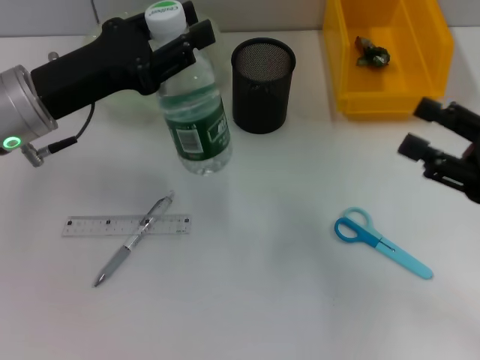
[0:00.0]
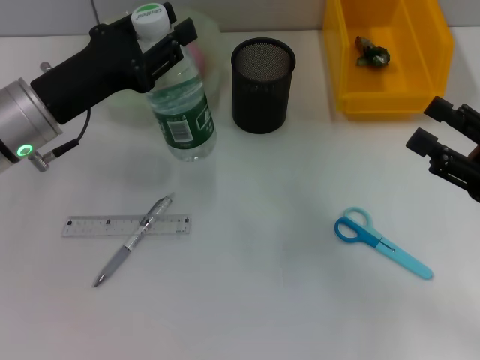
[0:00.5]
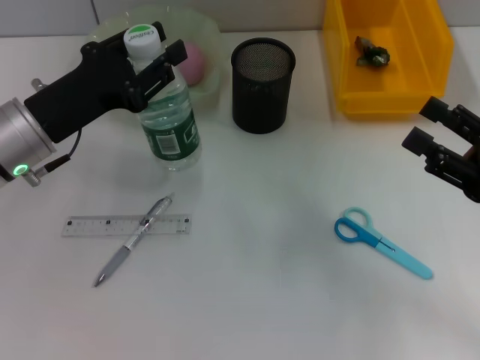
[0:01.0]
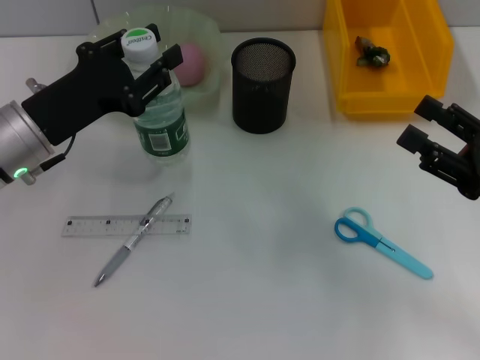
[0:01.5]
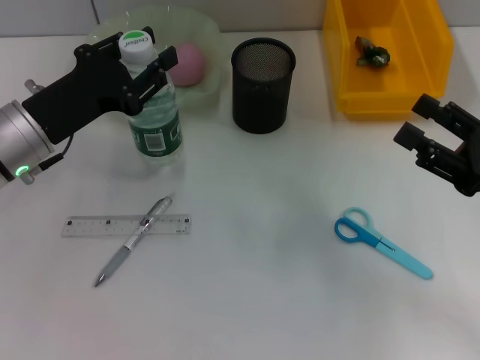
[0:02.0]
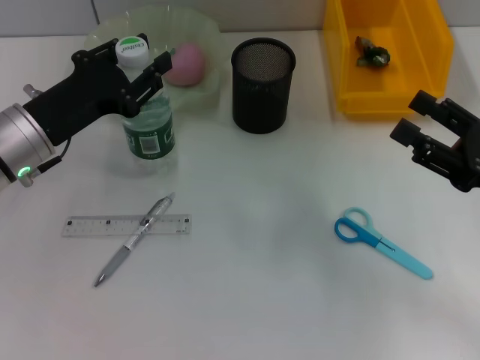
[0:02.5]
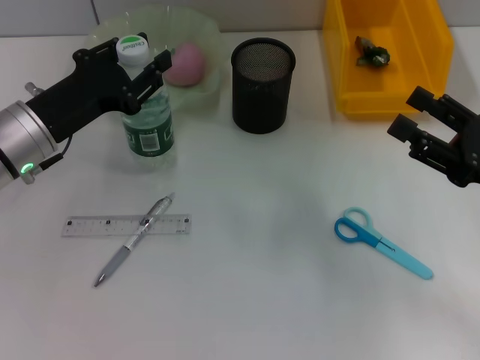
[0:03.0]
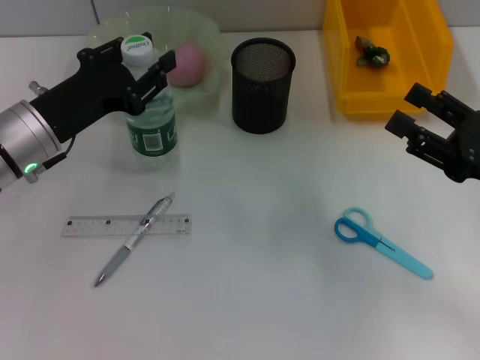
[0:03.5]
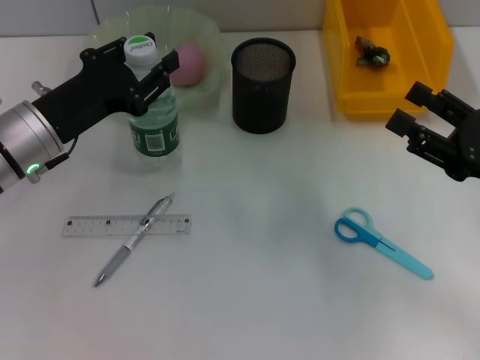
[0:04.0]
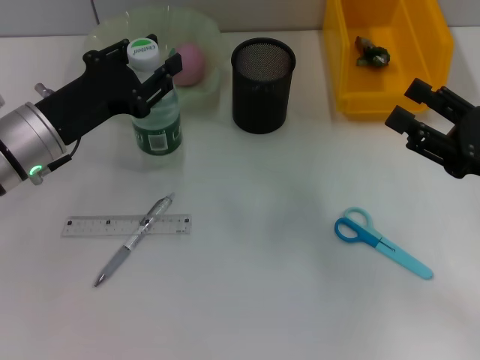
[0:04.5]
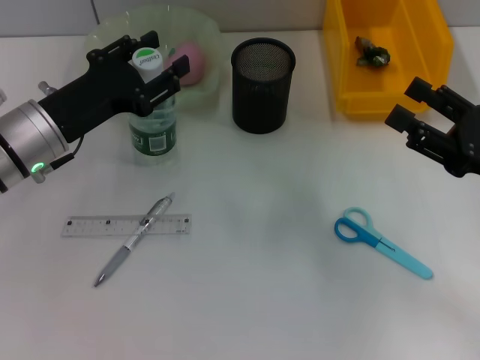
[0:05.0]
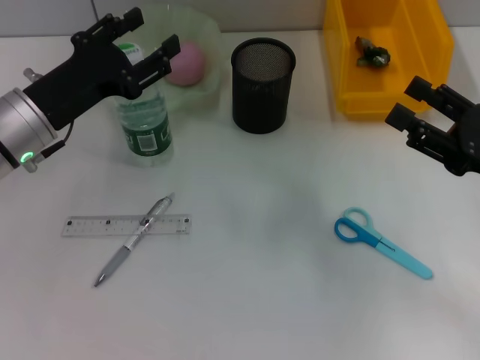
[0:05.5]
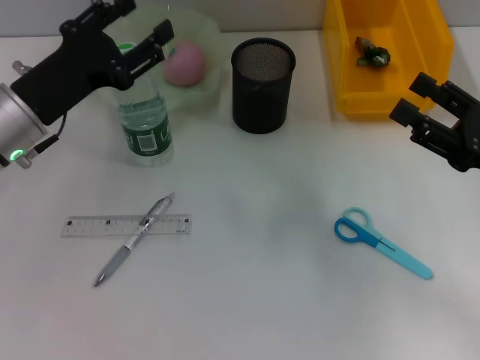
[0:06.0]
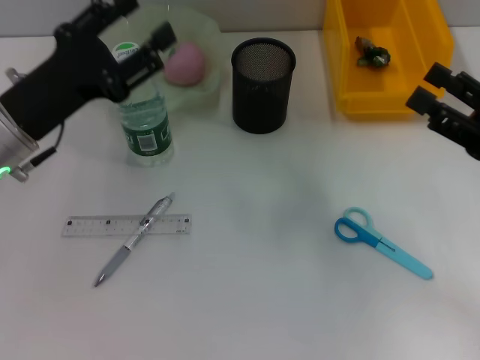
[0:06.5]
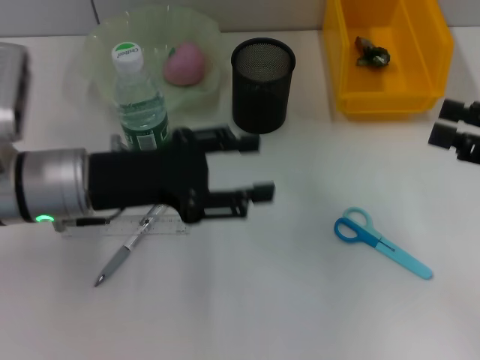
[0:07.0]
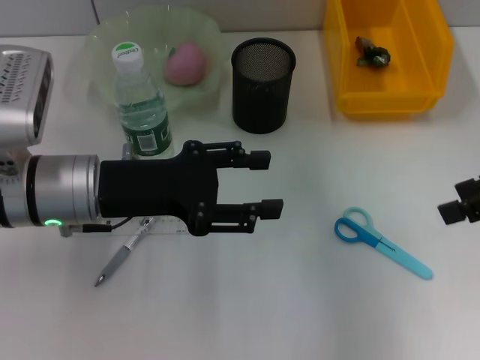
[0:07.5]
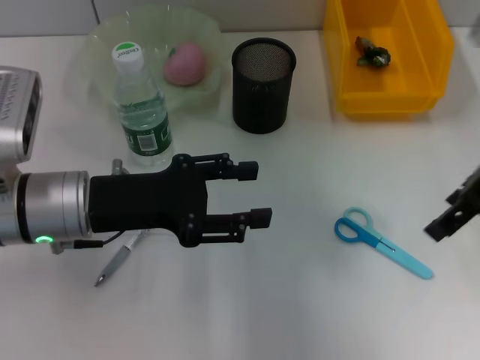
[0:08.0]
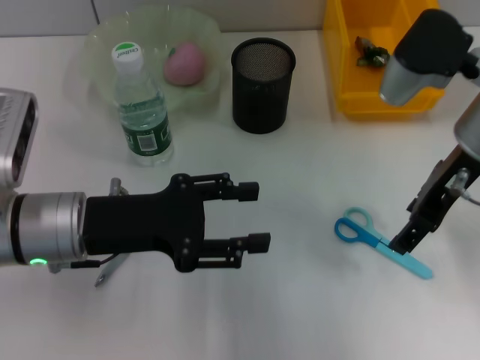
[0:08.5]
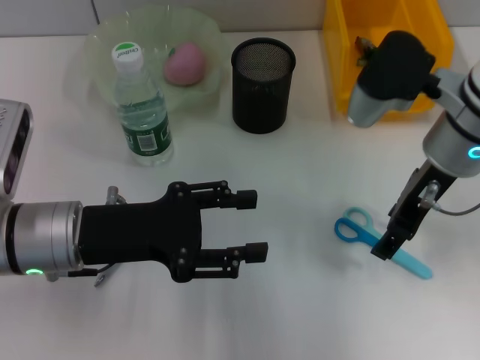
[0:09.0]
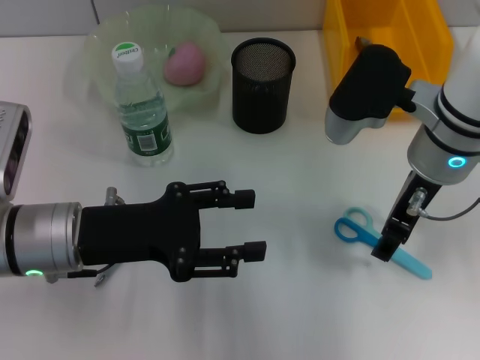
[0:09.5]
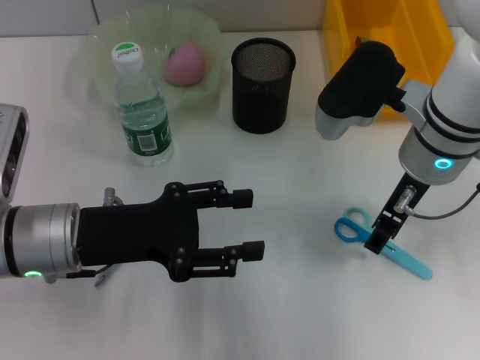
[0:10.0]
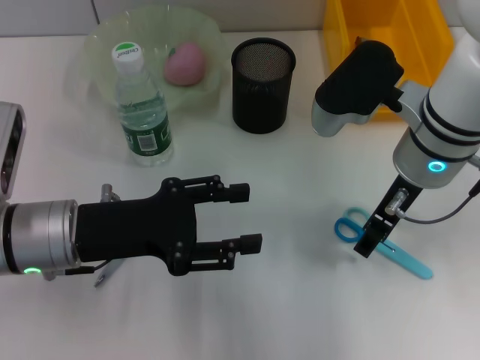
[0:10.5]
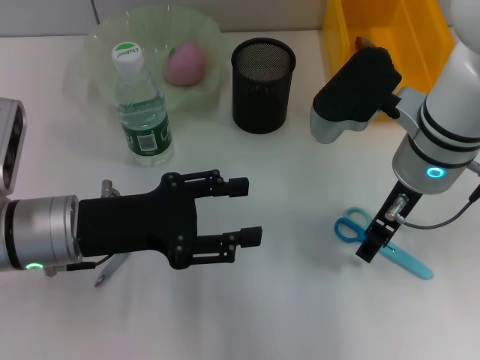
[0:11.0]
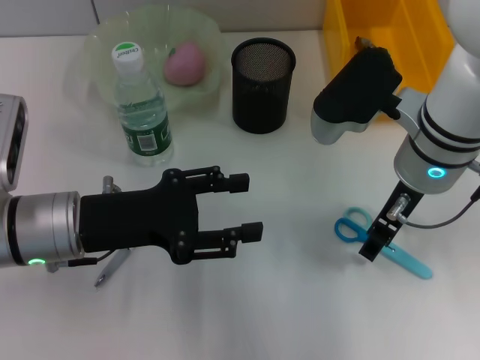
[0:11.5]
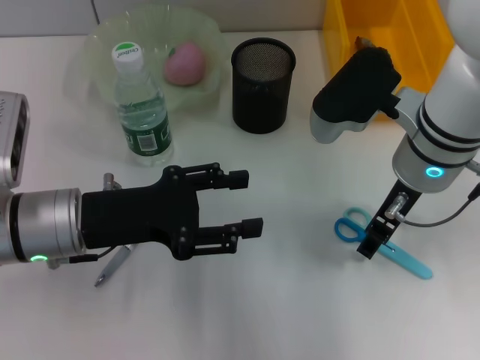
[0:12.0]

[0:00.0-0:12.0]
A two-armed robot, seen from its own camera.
Step, 0:00.0 to 0:05.5: Place the water bottle on the table with the left hand.
0:00.0 to 0:02.0: The grippers make only small movements.
0:02.0 to 0:04.0: Both grippers stay put.
0:04.0 to 0:06.0: The left gripper opens its fingers.
0:06.0 to 0:08.0: The left gripper ends up roughly 5 cm from where it was; the right gripper heads upward and forward, covering roughly 15 cm.
0:08.0 to 0:10.0: The right gripper travels to the left and downward by some 10 cm.
0:10.0 to 0:12.0: Both grippers stay about where they are.

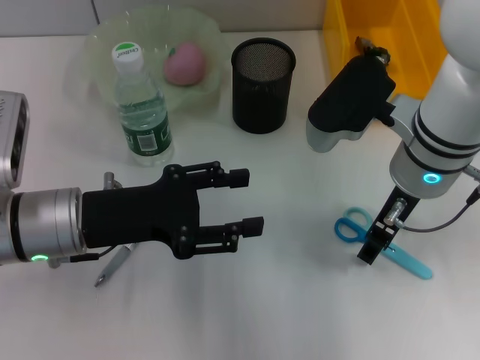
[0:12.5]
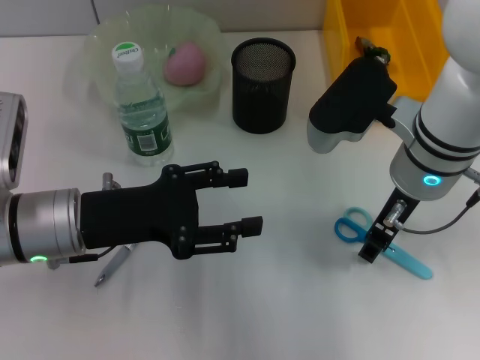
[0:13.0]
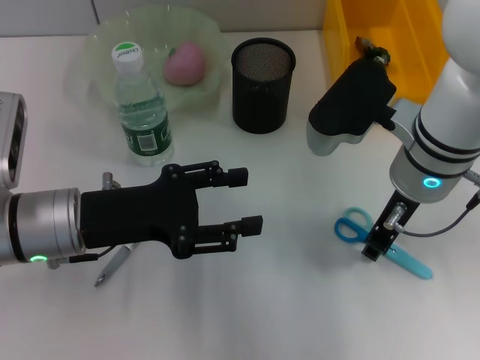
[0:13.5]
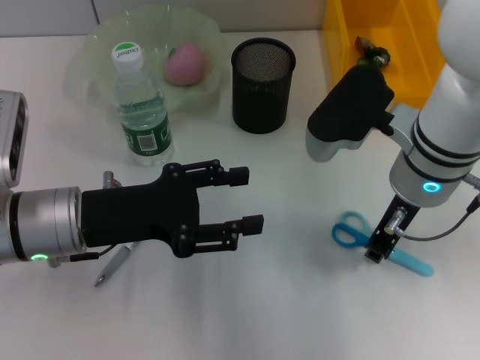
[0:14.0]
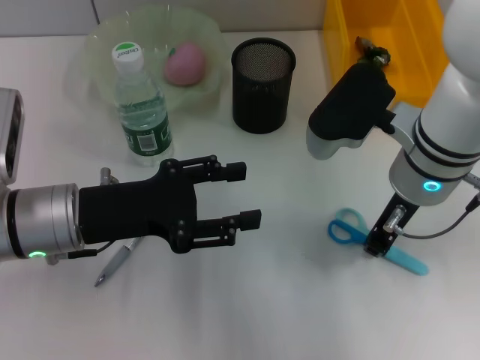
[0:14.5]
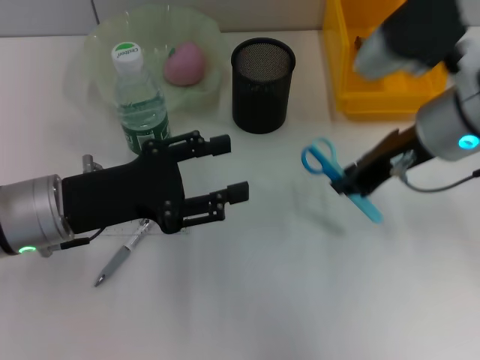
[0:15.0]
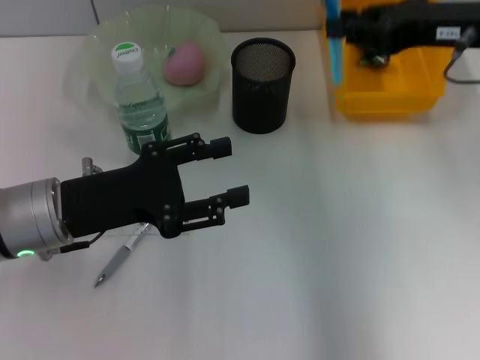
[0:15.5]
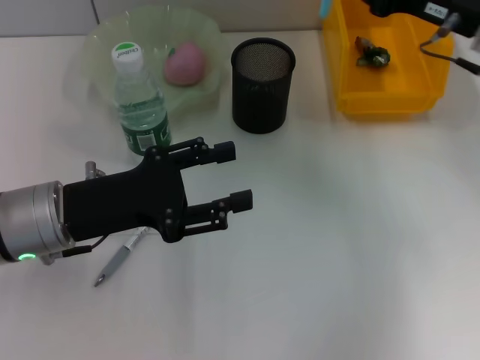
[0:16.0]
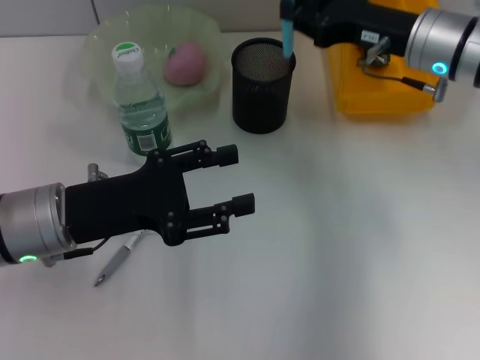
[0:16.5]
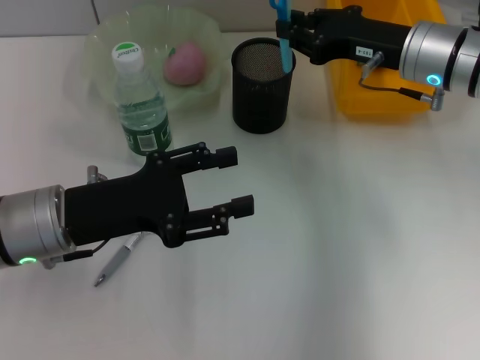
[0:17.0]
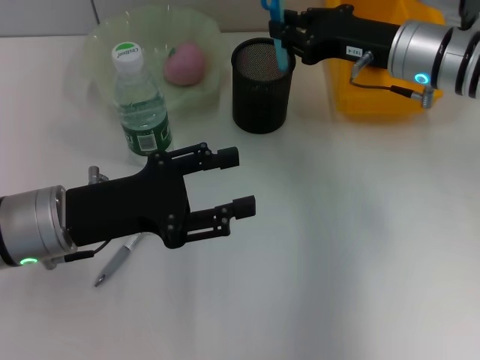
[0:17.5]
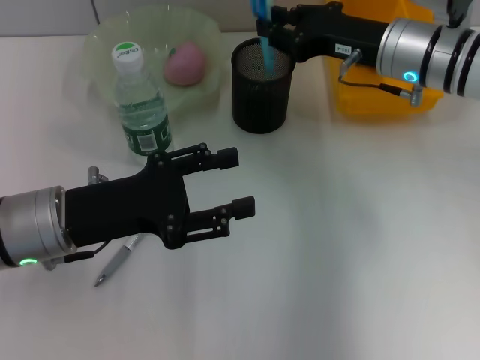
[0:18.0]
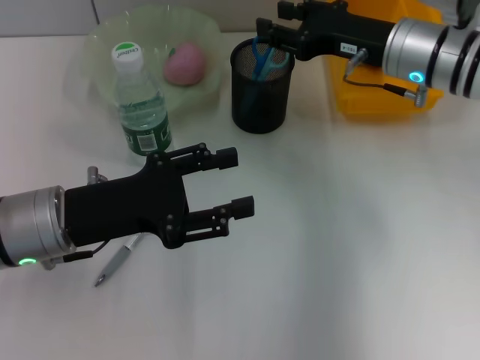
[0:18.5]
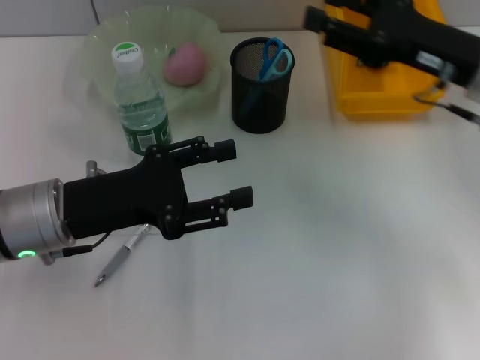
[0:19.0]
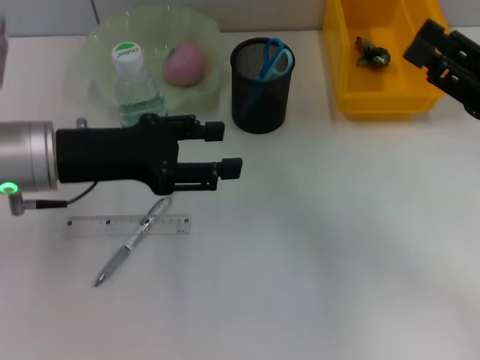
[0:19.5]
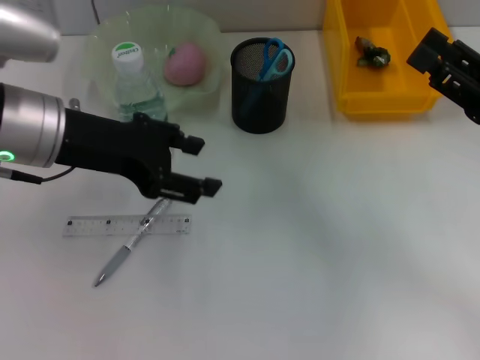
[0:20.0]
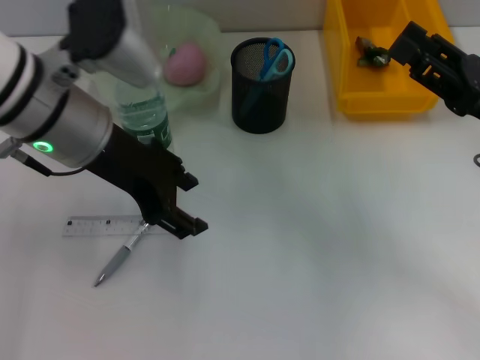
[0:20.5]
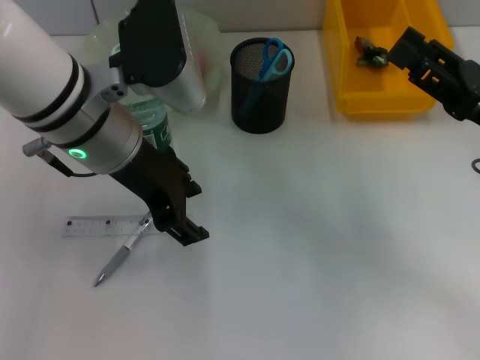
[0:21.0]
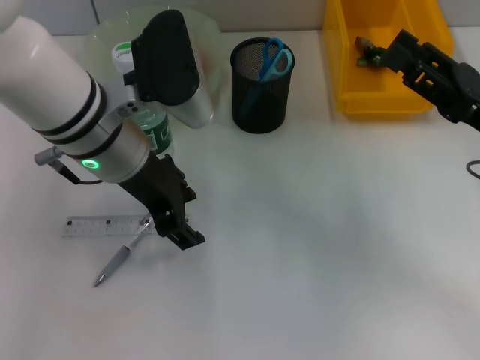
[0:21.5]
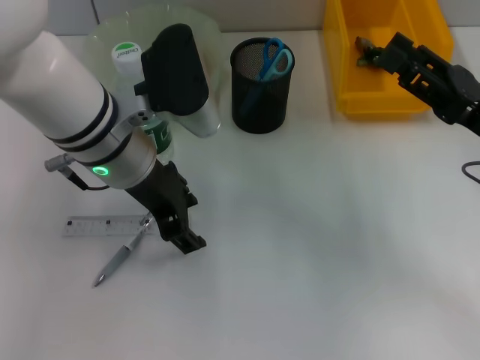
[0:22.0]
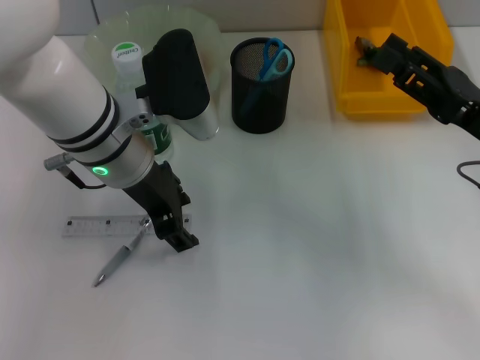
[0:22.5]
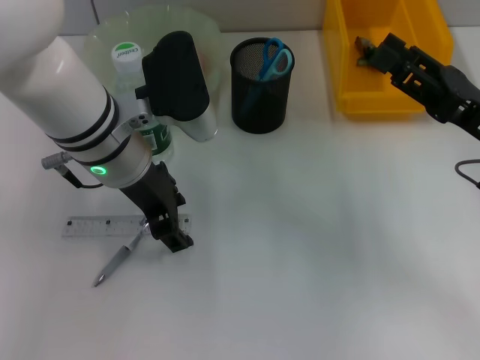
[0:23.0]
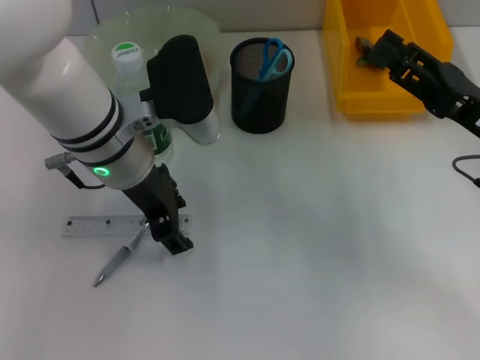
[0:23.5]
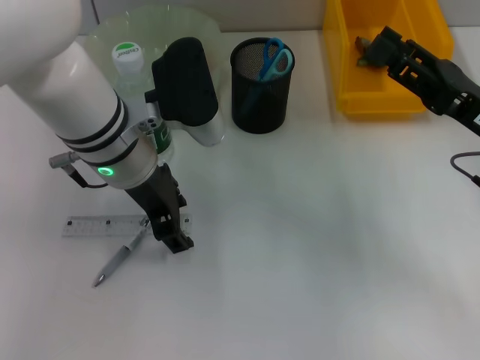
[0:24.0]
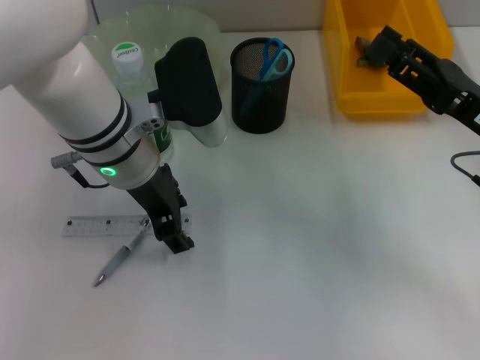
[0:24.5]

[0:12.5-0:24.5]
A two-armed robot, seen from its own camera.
Step, 0:14.5 to 0:18.5: Place the blue utility knife into the pen holder with the right hand.
0:12.5 to 0:14.5: The right gripper closes up.
0:14.5 to 0:16.5: The right gripper goes about 10 cm forward and to the right.
0:16.5 to 0:18.5: The grippers make only small movements.
0:18.5 to 0:20.5: The right gripper moves backward and to the right, some 15 cm; the left gripper is displaced upward, forward and to the right by roughly 15 cm.
0:20.5 to 0:22.5: The left gripper moves about 5 cm.
0:22.5 to 0:24.5: Both grippers stay put.

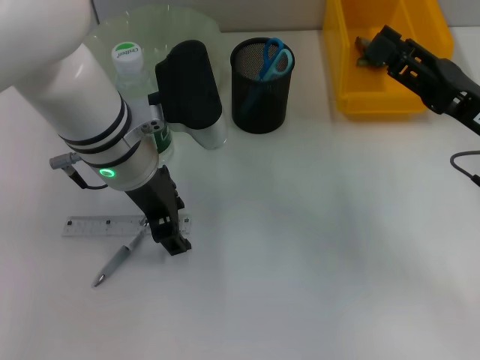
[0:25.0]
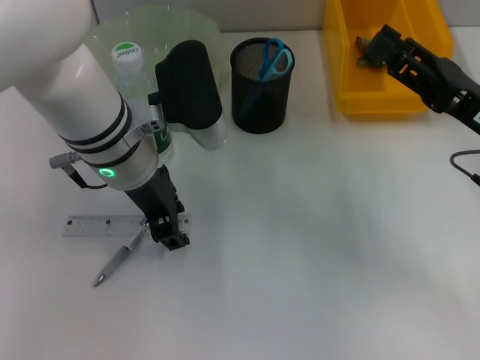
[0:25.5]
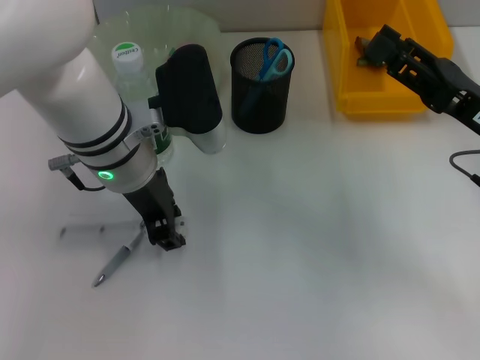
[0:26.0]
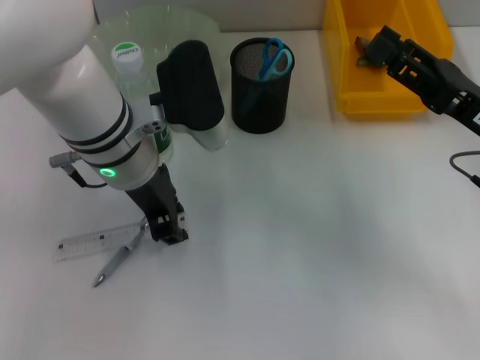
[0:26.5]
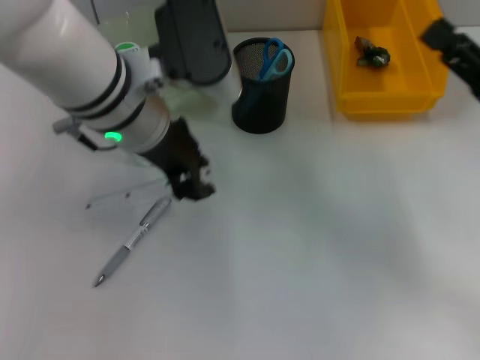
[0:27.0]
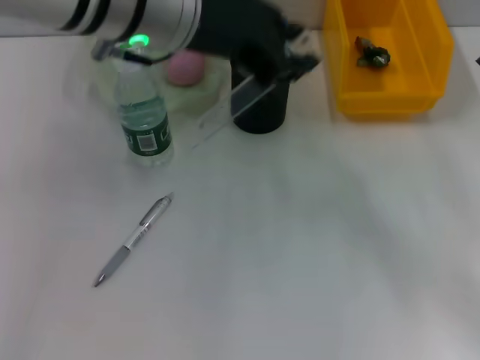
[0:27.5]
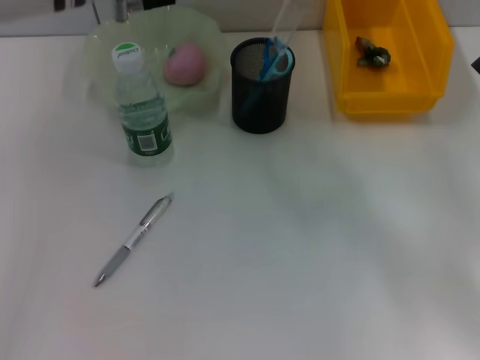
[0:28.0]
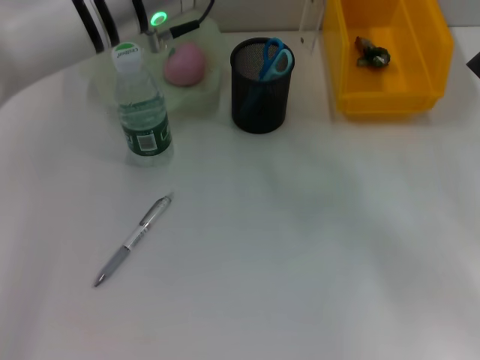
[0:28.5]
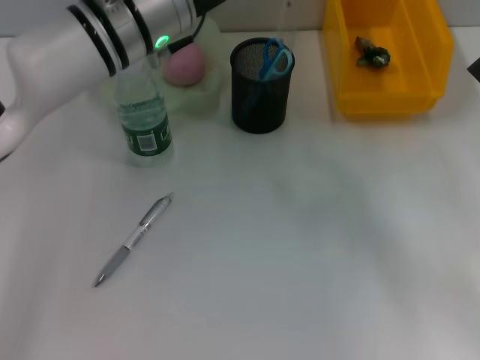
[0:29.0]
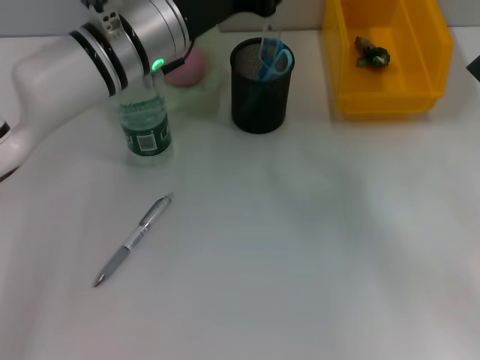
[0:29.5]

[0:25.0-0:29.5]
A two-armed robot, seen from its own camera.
0:25.0 to 0:27.0: The left gripper closes.
0:27.0 to 0:29.5: The left gripper moves about 10 cm upward and comes back.
